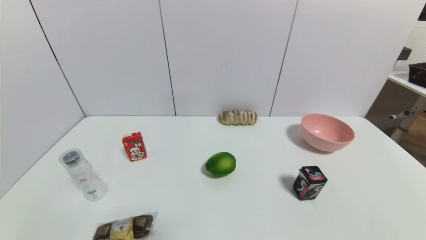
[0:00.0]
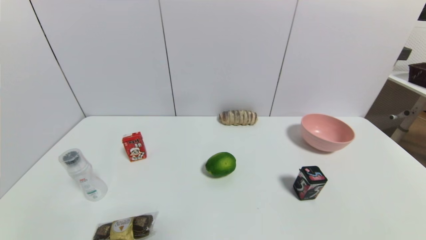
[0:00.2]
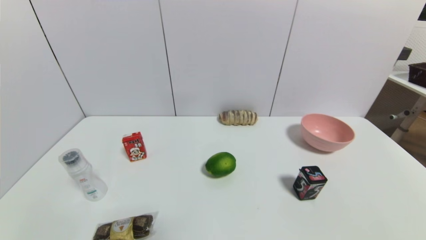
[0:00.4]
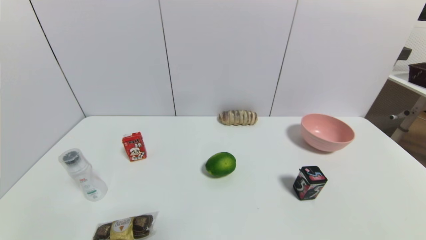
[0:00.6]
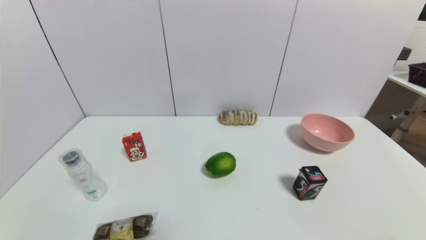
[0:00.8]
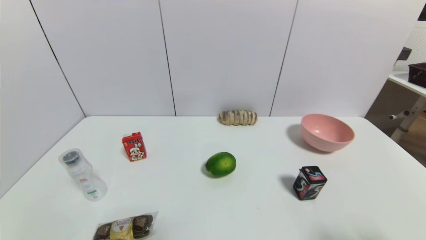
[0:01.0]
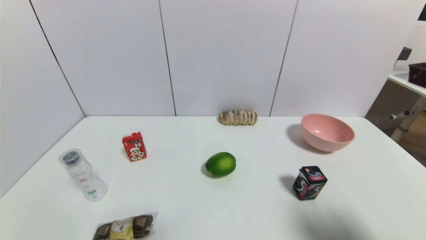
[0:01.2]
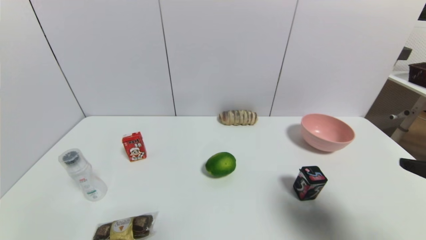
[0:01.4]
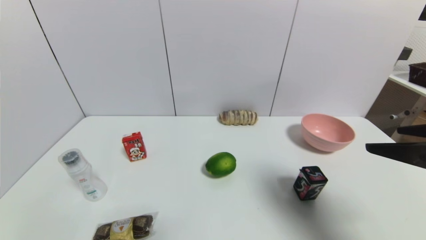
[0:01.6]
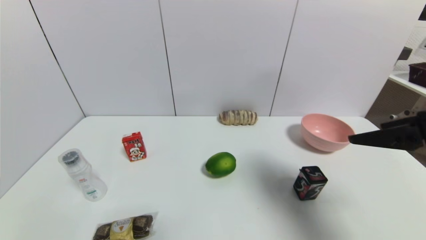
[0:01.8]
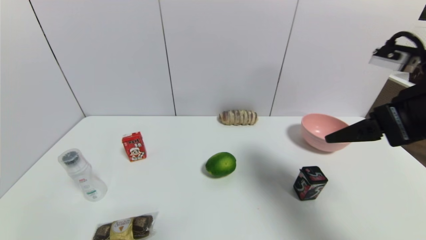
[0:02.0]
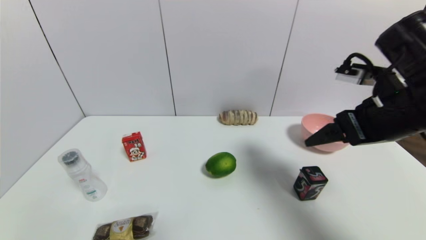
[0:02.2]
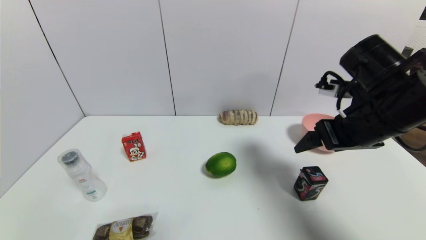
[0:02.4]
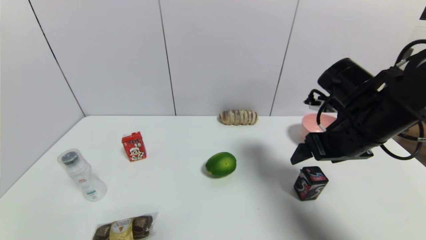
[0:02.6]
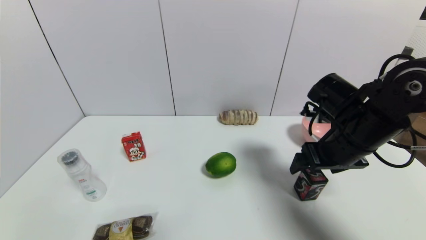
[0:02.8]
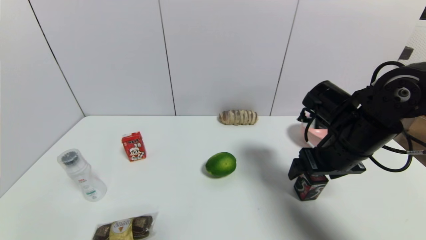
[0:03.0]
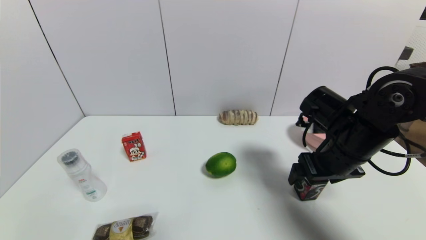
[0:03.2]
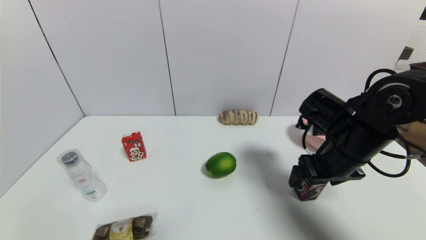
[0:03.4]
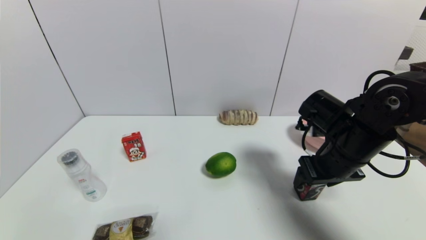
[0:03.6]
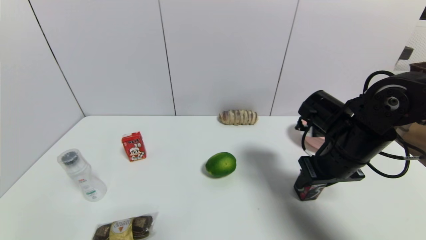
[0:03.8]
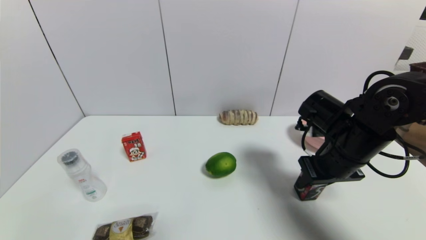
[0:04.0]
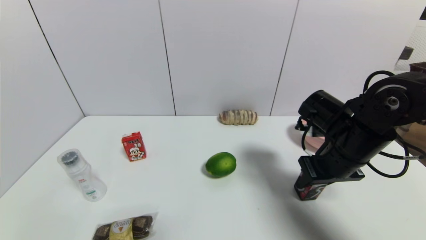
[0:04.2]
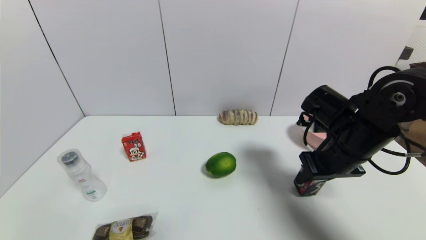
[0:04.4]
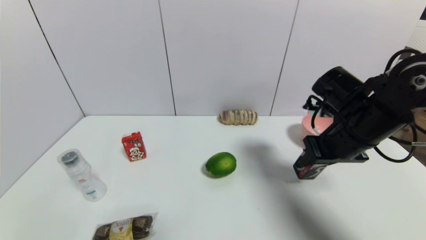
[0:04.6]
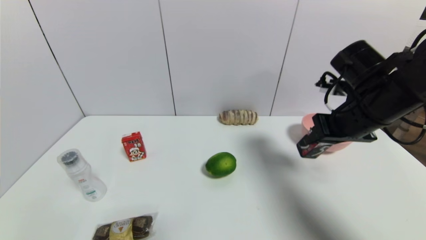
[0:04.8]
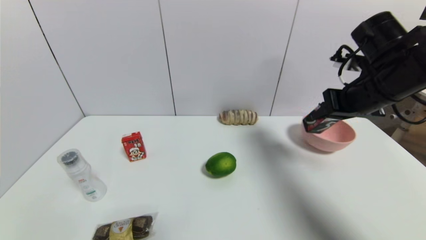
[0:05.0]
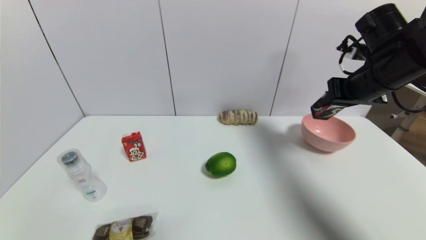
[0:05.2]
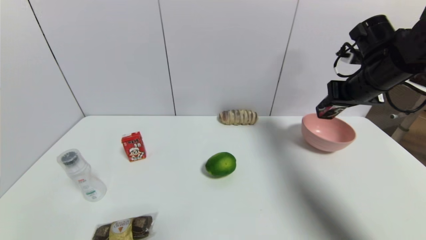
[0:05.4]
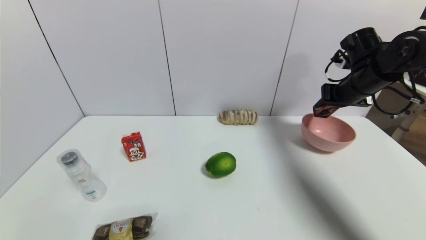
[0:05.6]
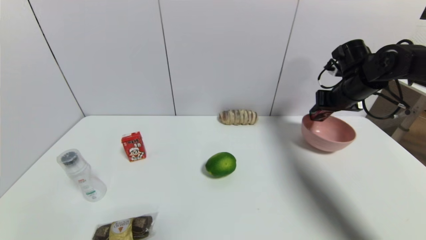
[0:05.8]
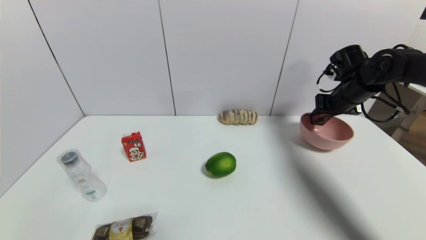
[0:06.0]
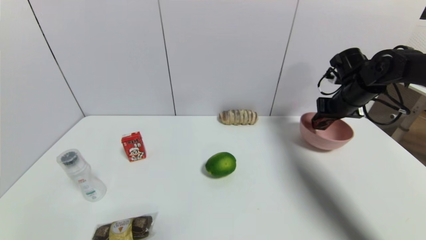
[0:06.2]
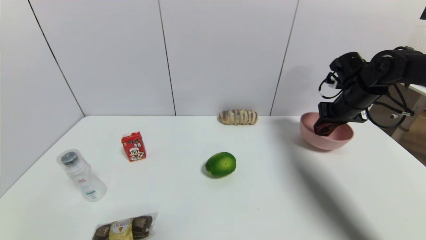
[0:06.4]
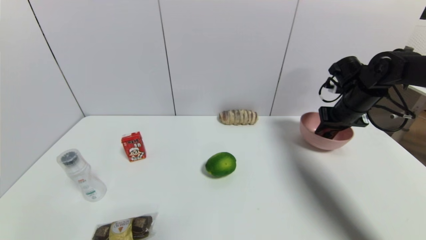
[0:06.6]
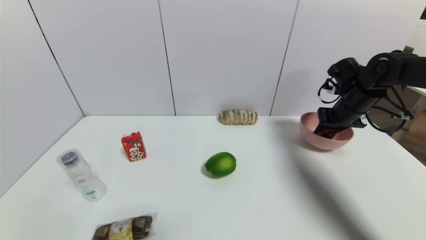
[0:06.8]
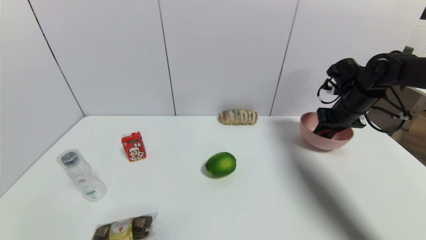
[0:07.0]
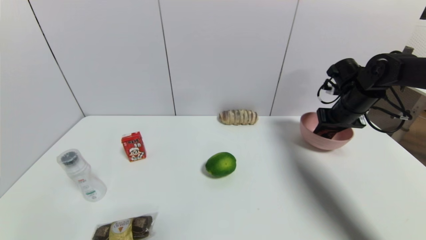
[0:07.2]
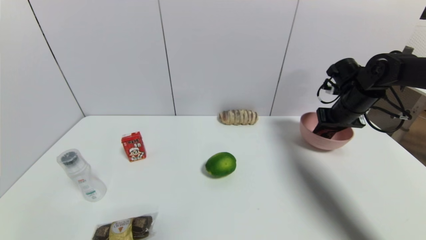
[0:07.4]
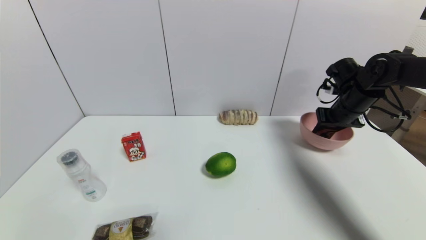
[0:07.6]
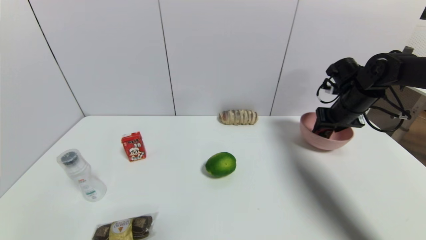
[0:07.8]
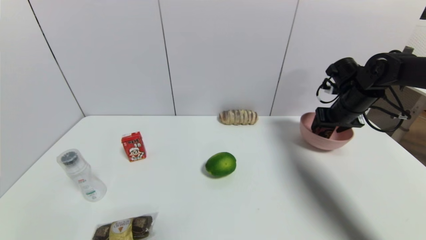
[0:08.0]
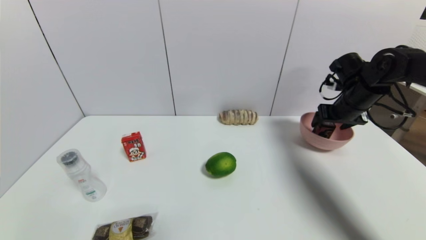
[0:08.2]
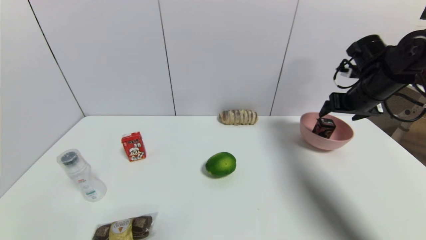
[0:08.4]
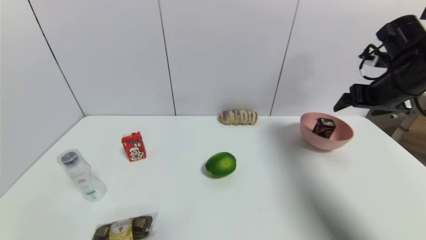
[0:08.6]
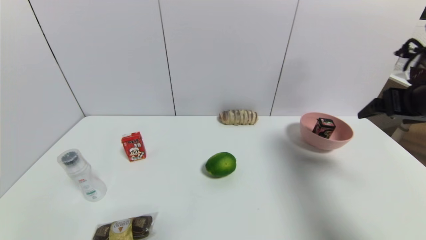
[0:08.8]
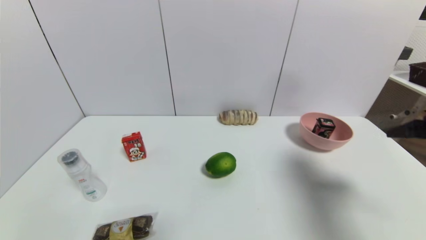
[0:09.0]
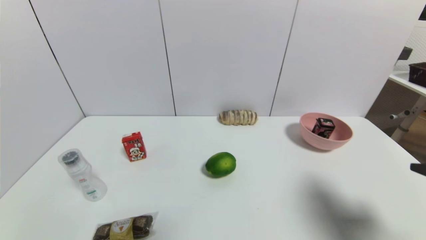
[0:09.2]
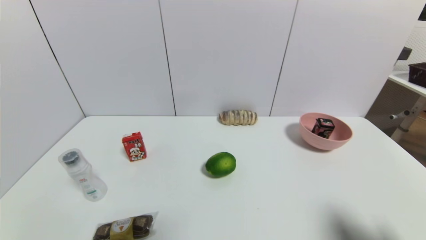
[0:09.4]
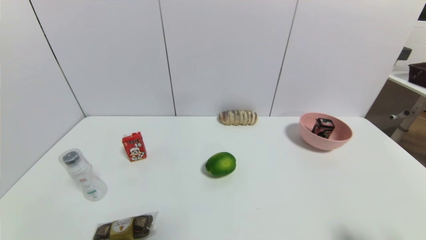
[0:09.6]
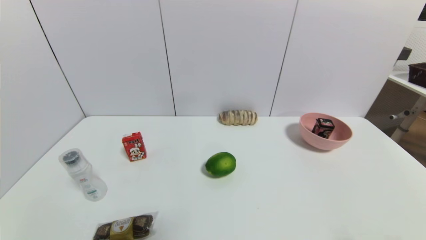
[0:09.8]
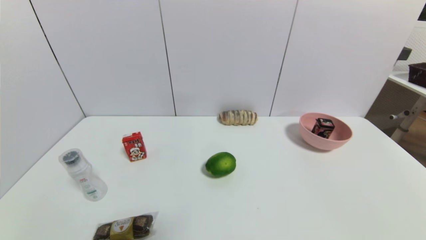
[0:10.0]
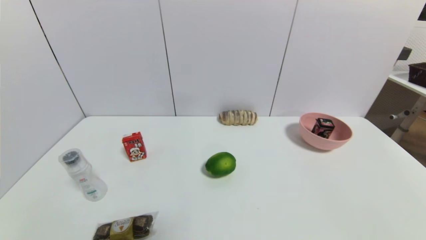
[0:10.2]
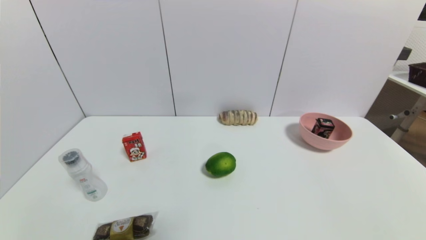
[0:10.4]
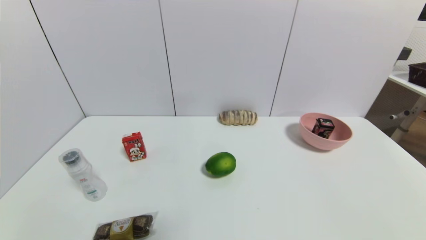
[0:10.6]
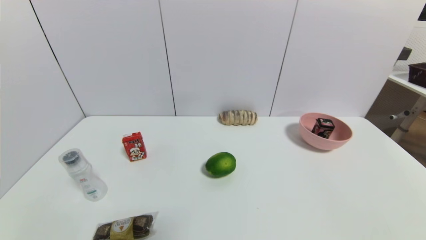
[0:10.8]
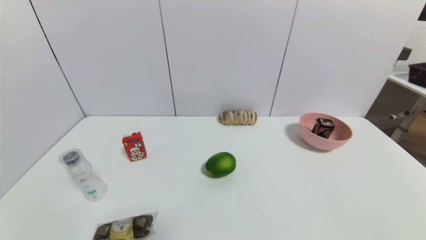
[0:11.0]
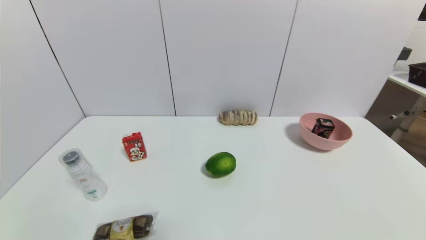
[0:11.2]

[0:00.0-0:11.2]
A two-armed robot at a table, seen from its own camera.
Task of the whole recording: use a gripper to pick the target object and place on the pink bowl.
Step, 0:00.0 to 0:04.0: Grasp the square chewing gum with the right gripper.
Step, 0:04.2 to 0:08.2: Place the square chewing gum on the pink bowl with the right gripper.
0:00.0 to 0:01.6: The right gripper heads upward and forward, covering about 25 cm.
0:01.6 to 0:03.2: The right gripper is displaced forward, downward and to the left by approximately 20 cm.
0:03.2 to 0:04.8: The right gripper travels upward by approximately 5 cm, and closes its fingers.
0:04.8 to 0:06.4: The right gripper moves forward and to the right, about 15 cm.
0:06.4 to 0:08.0: The right gripper opens its fingers.
0:08.0 to 0:09.6: The right gripper moves backward, approximately 40 cm, and opens up.
